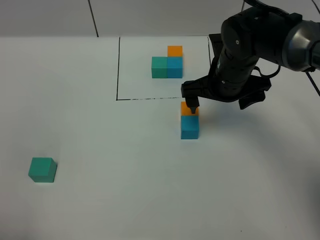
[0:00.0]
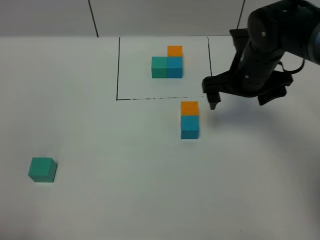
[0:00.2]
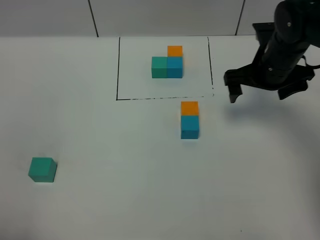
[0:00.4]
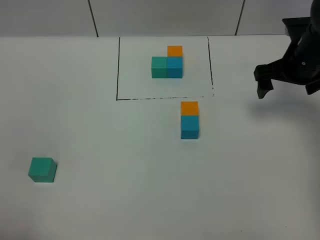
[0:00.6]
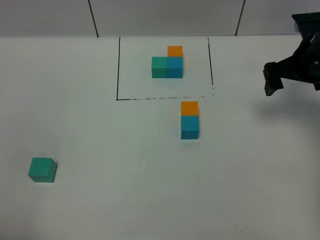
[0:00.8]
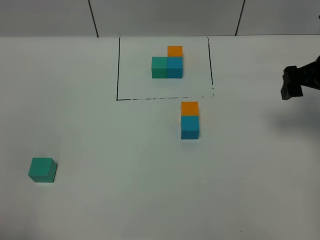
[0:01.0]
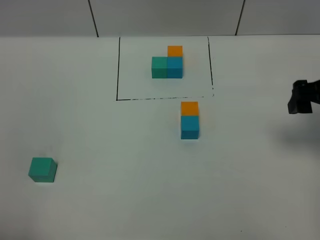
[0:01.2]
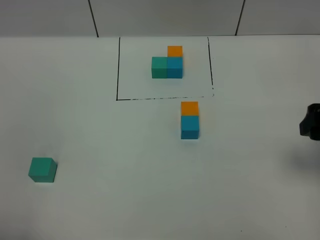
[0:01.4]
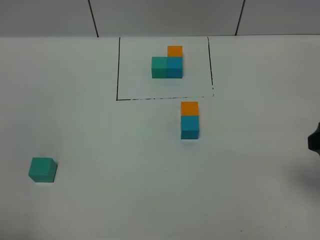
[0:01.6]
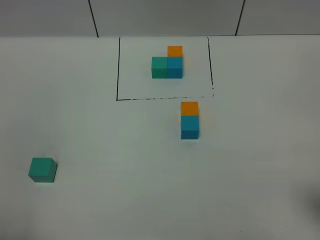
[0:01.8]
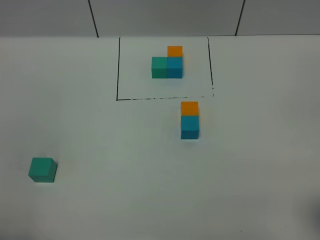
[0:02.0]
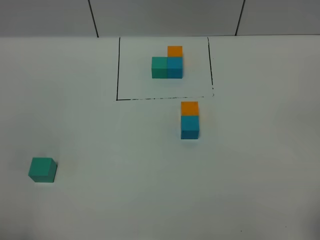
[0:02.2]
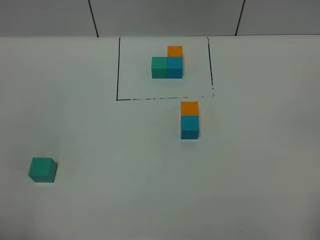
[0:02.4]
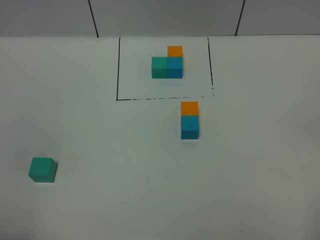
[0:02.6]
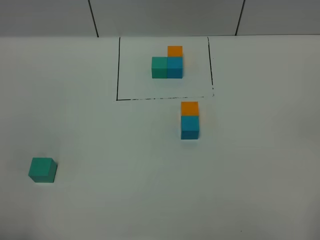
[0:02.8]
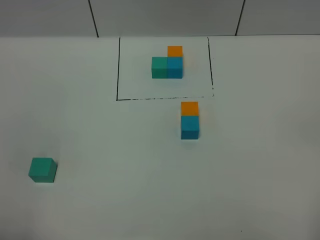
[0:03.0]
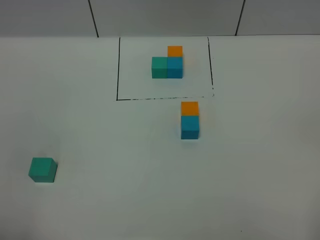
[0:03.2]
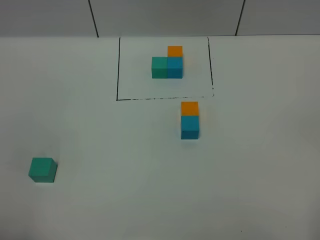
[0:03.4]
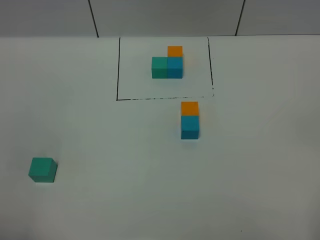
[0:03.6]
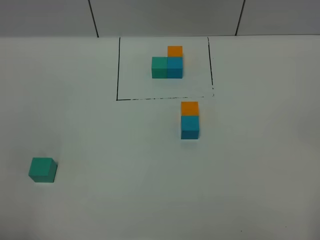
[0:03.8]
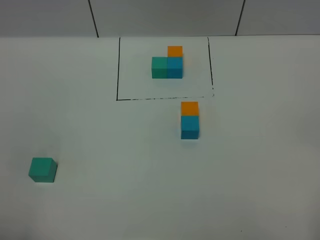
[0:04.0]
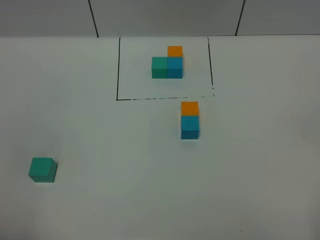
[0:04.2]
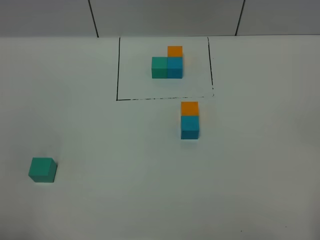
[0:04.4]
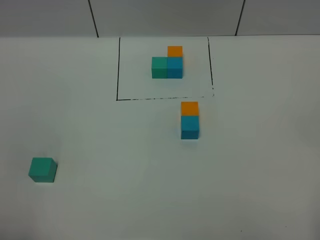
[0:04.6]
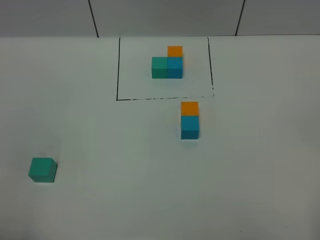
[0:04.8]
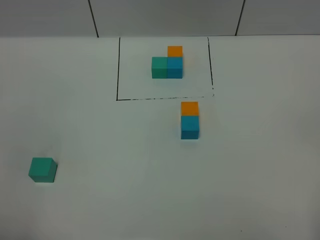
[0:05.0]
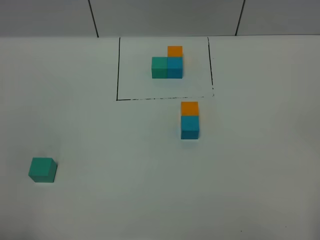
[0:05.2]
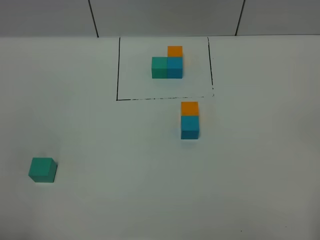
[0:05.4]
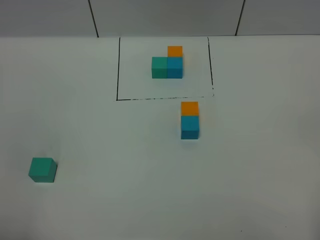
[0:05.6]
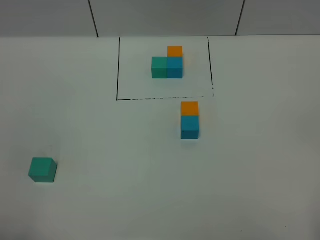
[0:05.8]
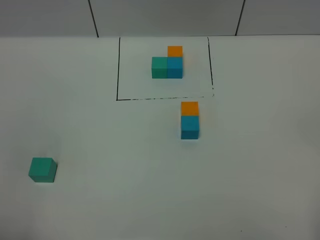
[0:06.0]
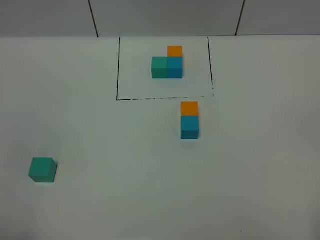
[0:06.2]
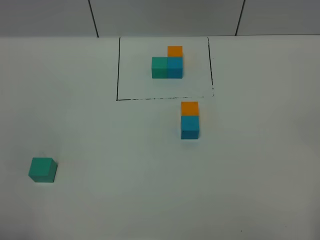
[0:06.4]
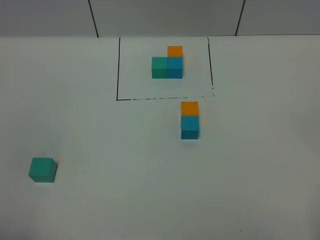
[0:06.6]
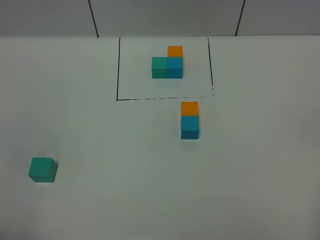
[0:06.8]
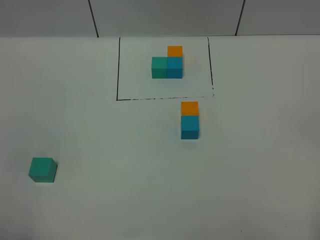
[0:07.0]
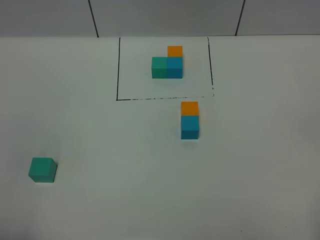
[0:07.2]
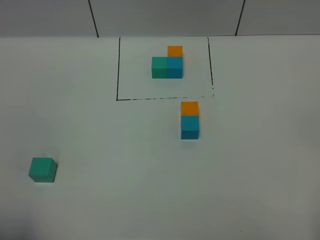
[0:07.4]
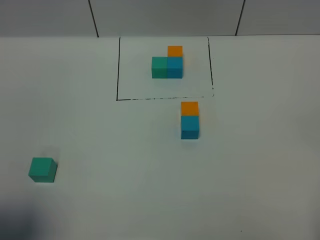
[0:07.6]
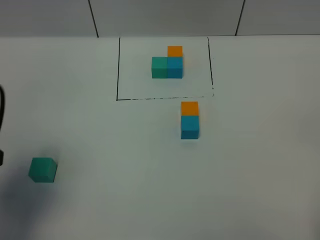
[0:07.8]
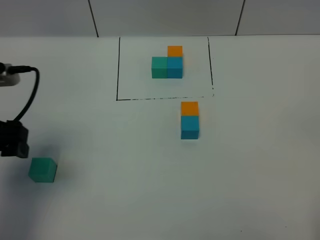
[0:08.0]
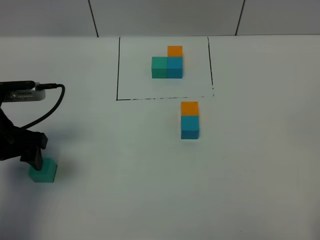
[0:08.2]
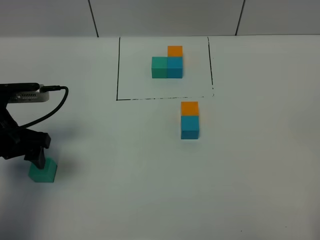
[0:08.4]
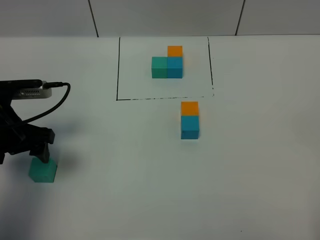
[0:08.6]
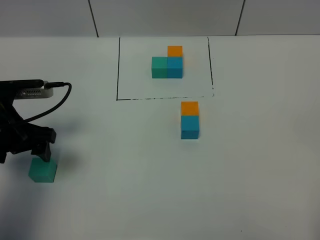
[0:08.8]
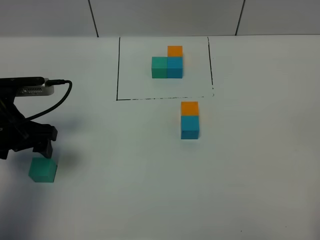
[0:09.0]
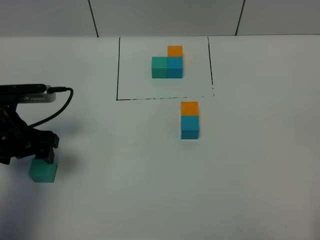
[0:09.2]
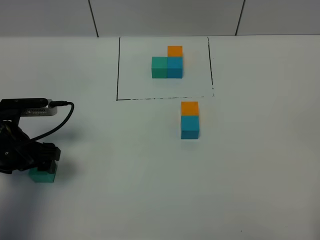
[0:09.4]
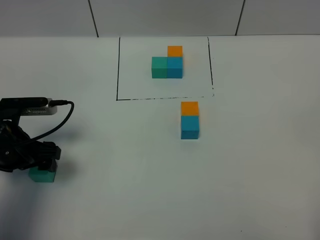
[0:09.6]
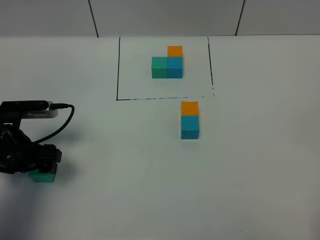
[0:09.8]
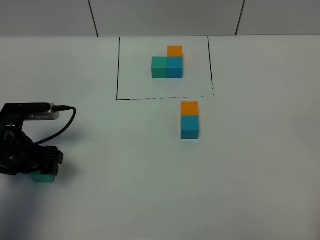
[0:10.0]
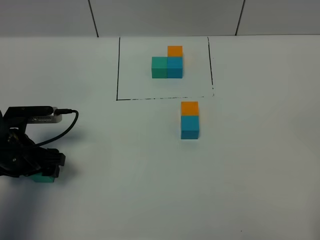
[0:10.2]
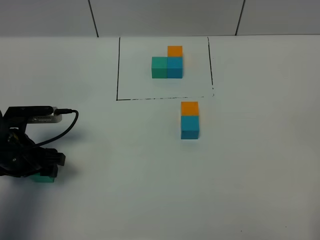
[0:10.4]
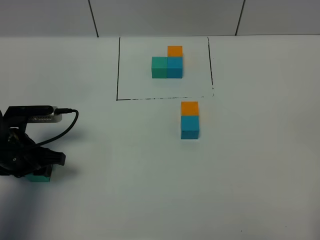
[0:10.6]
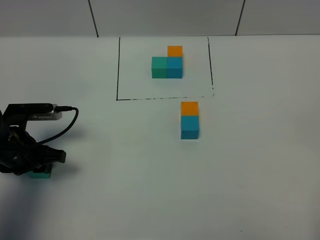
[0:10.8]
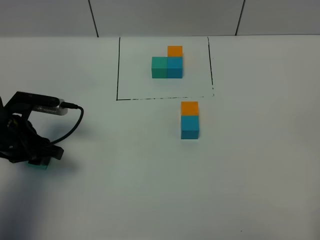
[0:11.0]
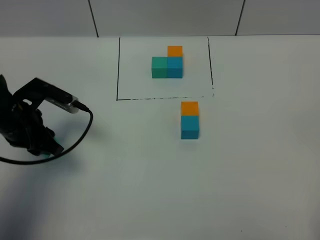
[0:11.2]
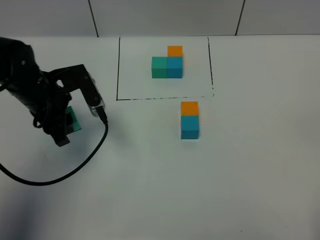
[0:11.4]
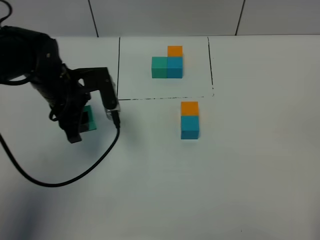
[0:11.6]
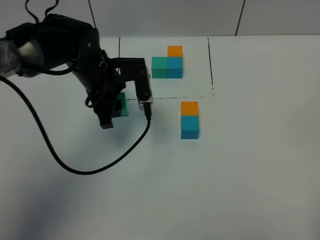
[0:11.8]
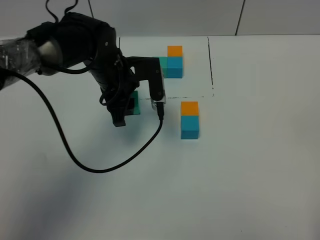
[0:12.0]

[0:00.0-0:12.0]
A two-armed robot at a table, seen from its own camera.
Task of the whole recording: According to the building block template in front, assemble the scattered blocks together.
0:00.0 to 0:01.6: The right gripper goes some 25 cm to the right and backward.
0:01.6 to 0:03.0: The right gripper shifts about 15 cm backward.
0:03.0 to 0:06.0: Both grippers stay about where they are.
0:06.0 to 0:07.6: The left gripper is displaced forward by roughly 10 cm.
0:07.6 to 0:09.0: The left gripper moves forward and downward, roughly 25 cm.
0:09.0 to 0:10.4: The left gripper heads downward, covering approximately 5 cm.
0:10.4 to 0:12.0: The left gripper heads to the right and forward, covering roughly 20 cm, and closes up.

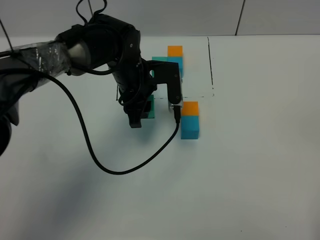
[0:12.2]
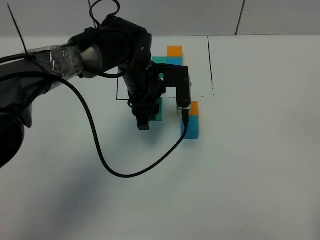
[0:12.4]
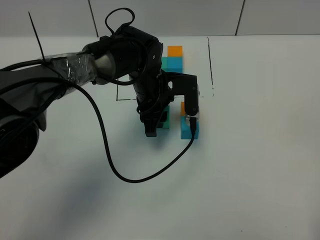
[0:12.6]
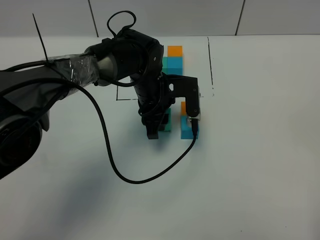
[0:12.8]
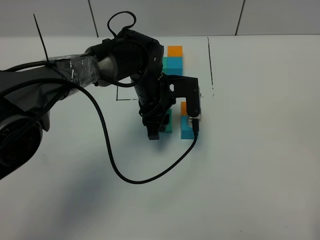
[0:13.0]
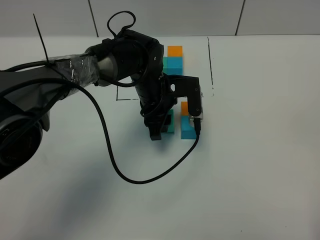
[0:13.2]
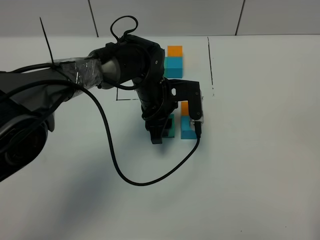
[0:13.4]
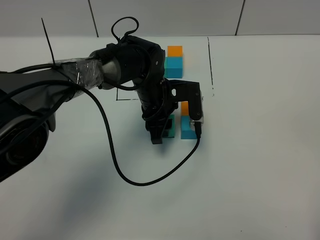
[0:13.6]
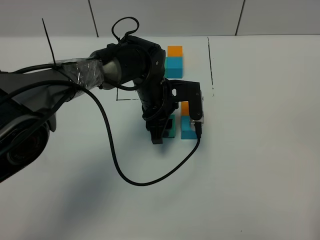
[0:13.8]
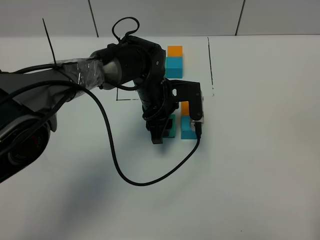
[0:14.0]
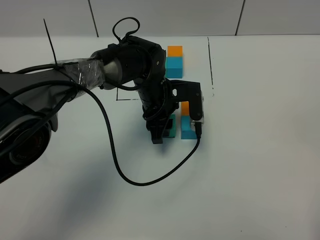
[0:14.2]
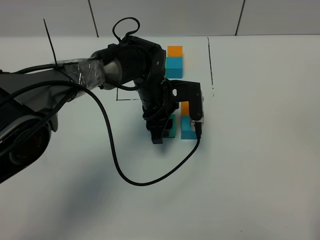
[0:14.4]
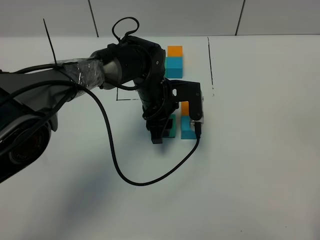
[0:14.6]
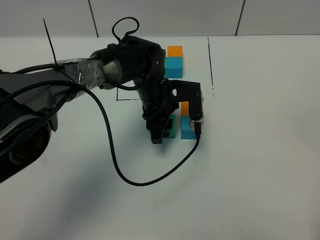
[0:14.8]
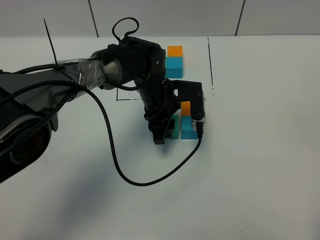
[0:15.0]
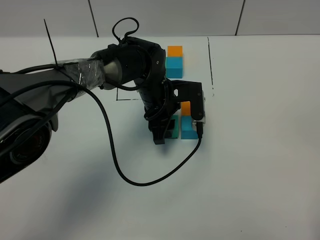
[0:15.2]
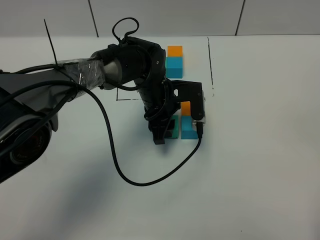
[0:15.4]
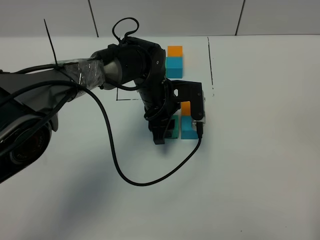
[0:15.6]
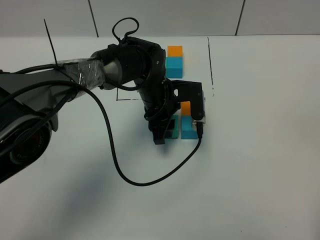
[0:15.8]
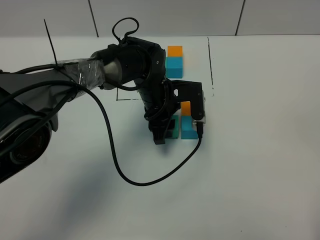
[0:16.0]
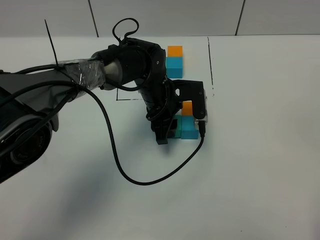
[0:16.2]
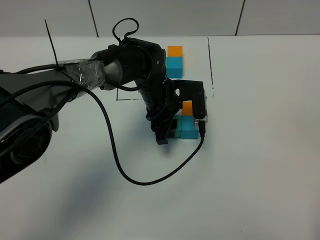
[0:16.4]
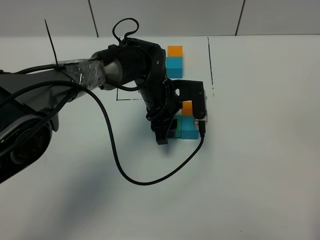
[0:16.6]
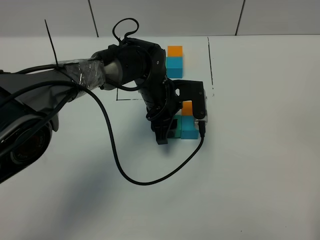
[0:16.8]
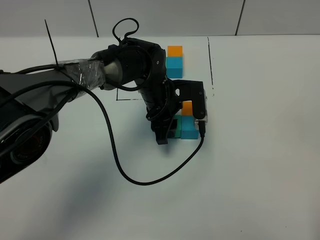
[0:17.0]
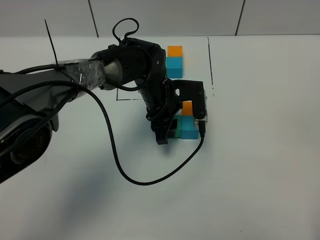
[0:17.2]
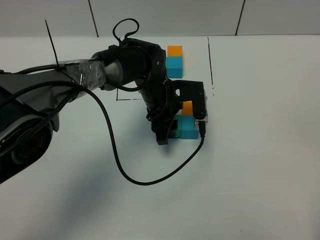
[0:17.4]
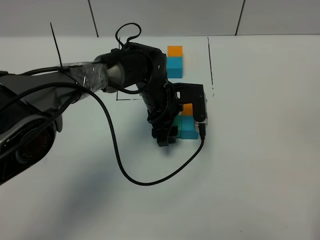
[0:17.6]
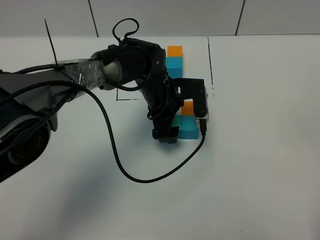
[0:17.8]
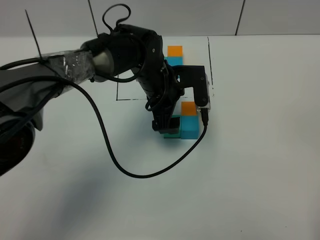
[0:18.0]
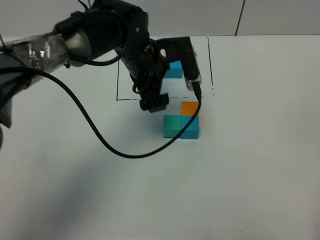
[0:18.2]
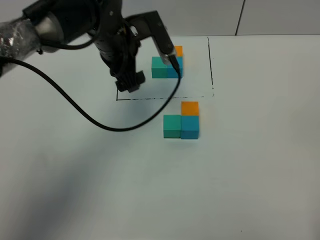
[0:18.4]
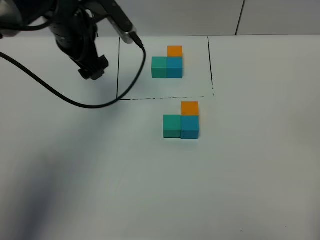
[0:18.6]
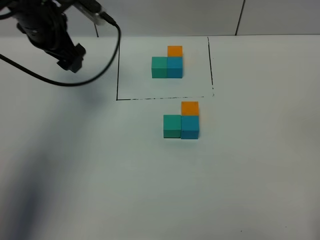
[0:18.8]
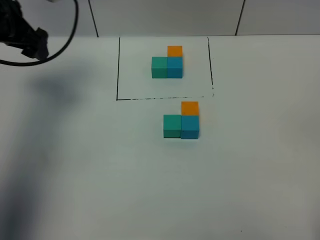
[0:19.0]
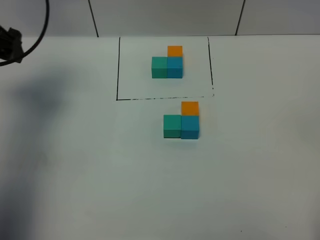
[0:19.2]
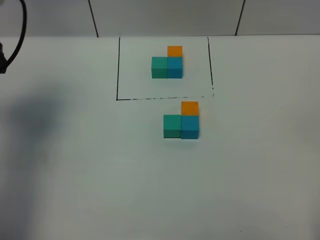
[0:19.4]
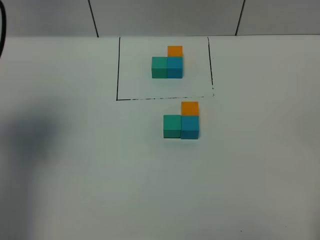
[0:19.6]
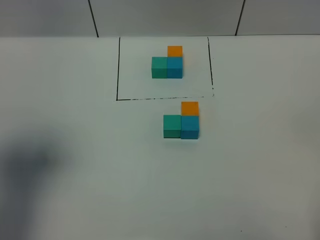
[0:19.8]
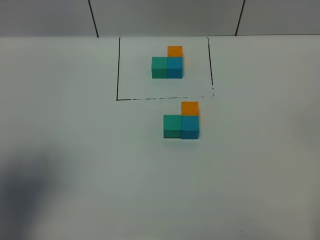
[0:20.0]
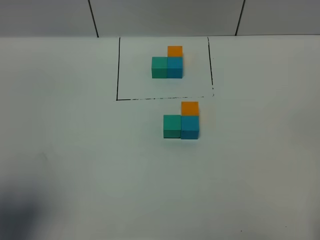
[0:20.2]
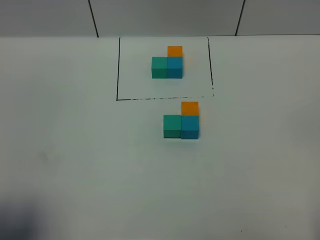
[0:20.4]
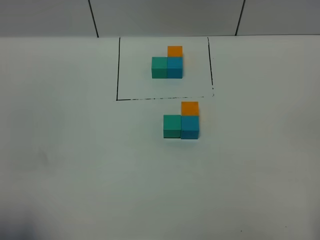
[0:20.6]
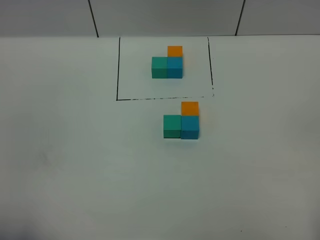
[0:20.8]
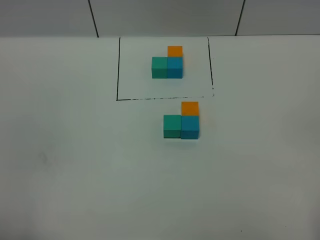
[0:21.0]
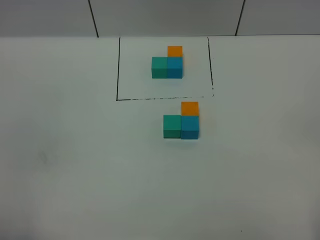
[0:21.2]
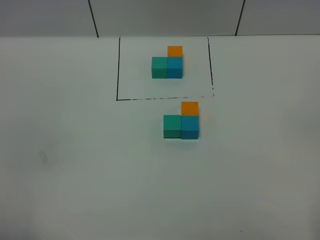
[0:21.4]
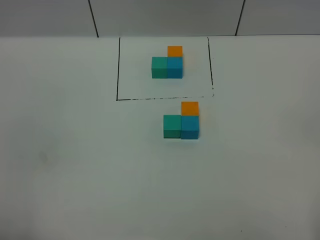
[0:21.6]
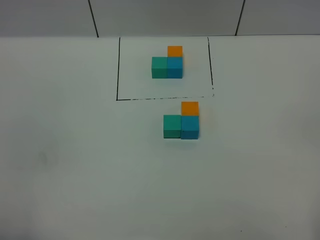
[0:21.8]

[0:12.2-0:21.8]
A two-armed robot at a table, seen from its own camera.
Task of the whole recording: According to the building block template in front, assemble the scattered blocks together.
Step, 0:12.2 to 0:17.8: Put the green build block on the left of the blue build block.
0:12.2 to 0:13.8: The left gripper shifts by some 5 cm.
0:13.8 to 0:17.0: Both grippers stay put.
0:17.0 to 0:18.6: The left gripper moves to the left and upward, roughly 20 cm, and opens its fingers.
0:18.6 to 0:20.2: The left gripper goes approximately 35 cm backward and to the left.
0:20.2 to 0:21.8: The left gripper is displaced backward and downward by roughly 10 cm.

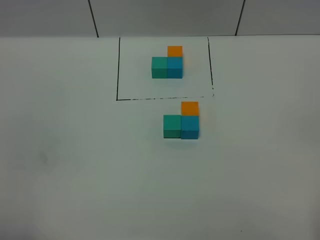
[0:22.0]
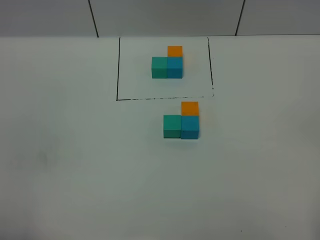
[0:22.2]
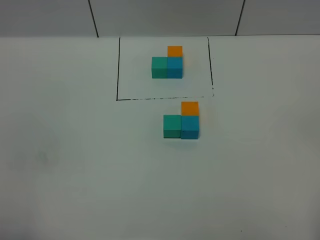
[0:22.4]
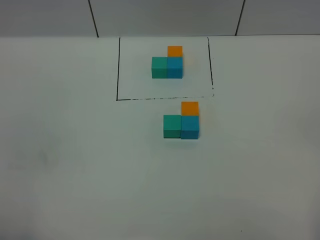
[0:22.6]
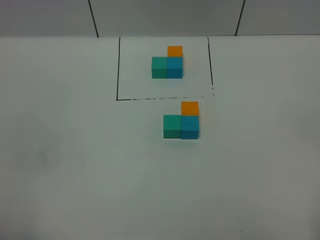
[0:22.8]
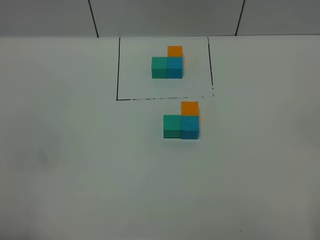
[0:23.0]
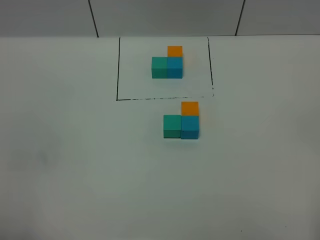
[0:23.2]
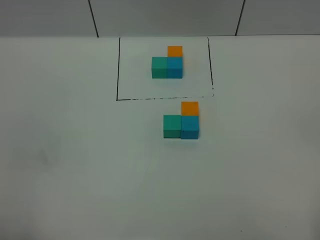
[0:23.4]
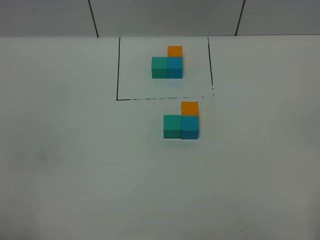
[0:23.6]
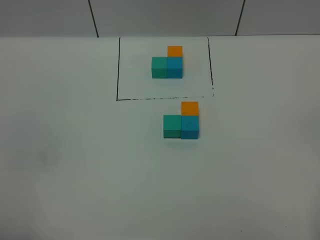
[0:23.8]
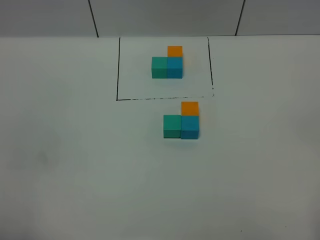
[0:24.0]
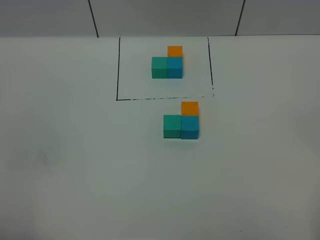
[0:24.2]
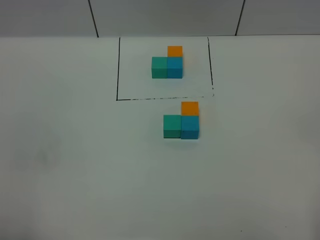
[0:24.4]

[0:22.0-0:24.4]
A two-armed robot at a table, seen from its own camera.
Task of the whole recording: According to the building block template in front, assemble the scattered blocks together.
0:22.0 to 0:24.4: The two grippers keep their place.
